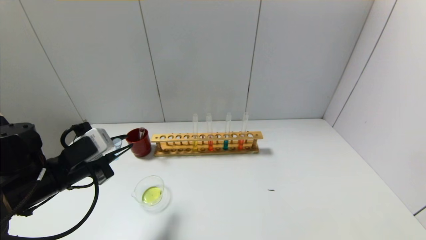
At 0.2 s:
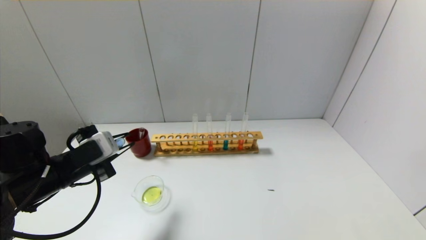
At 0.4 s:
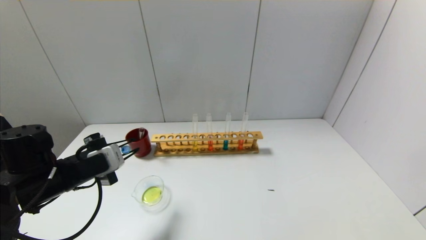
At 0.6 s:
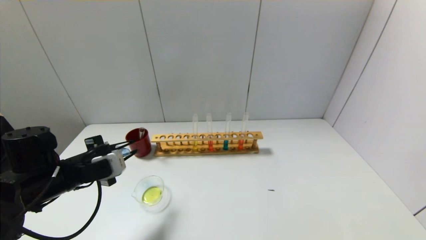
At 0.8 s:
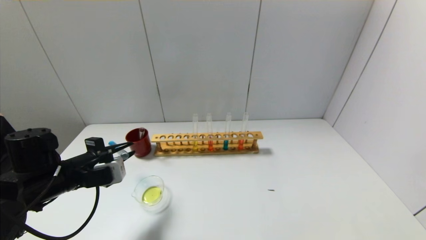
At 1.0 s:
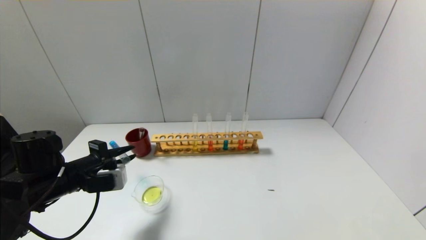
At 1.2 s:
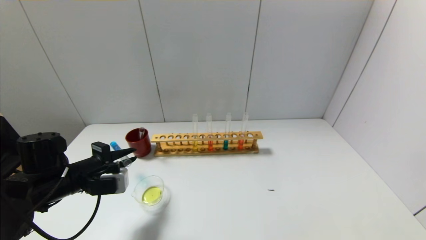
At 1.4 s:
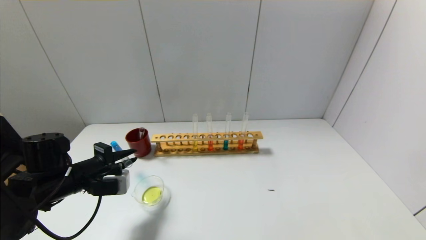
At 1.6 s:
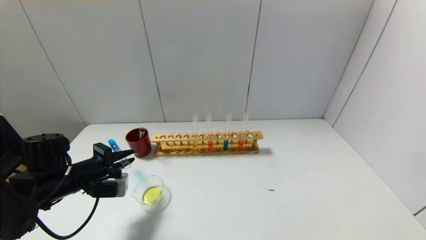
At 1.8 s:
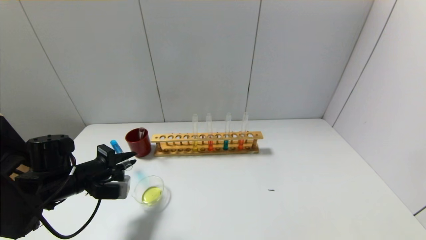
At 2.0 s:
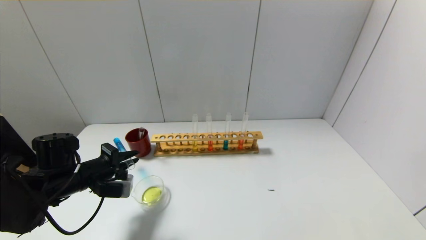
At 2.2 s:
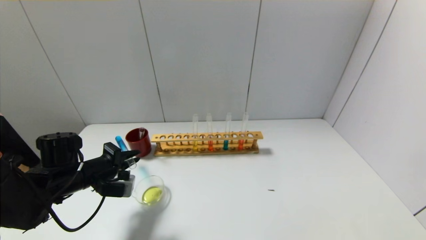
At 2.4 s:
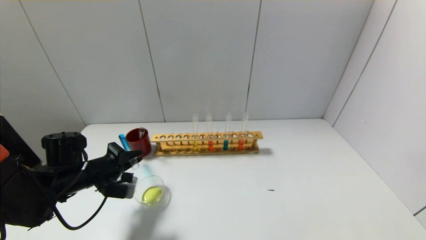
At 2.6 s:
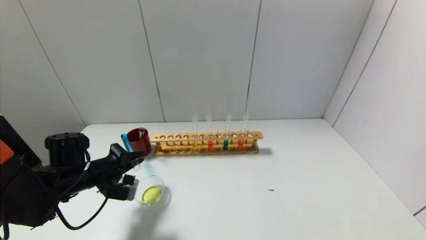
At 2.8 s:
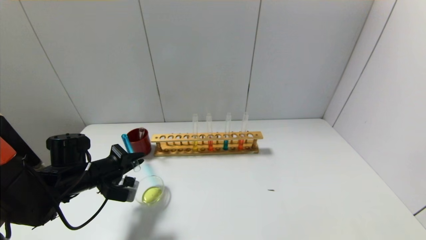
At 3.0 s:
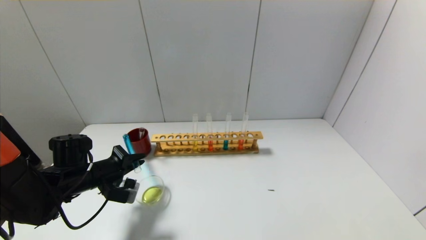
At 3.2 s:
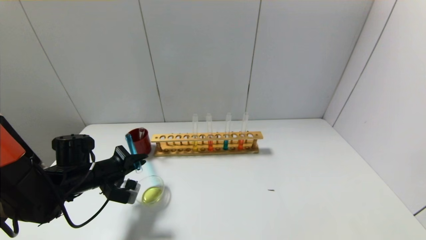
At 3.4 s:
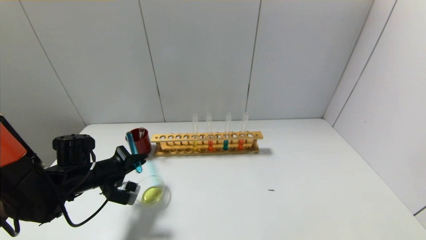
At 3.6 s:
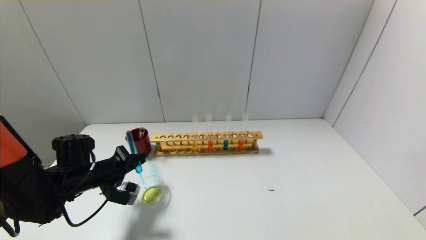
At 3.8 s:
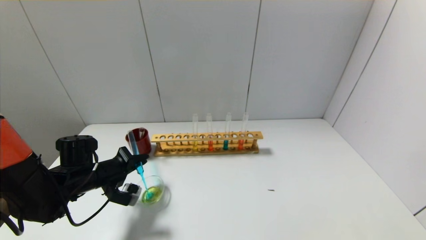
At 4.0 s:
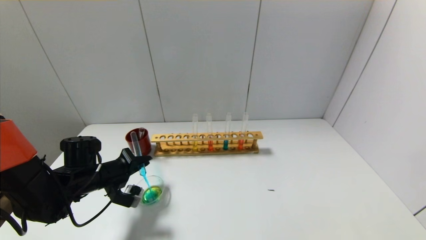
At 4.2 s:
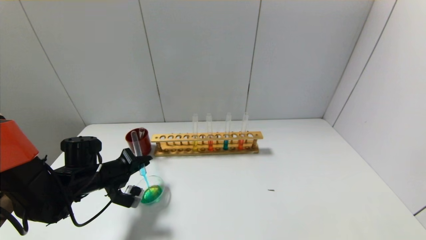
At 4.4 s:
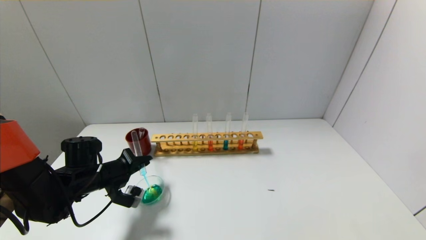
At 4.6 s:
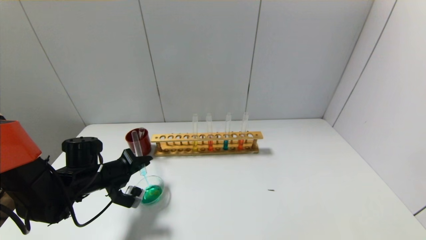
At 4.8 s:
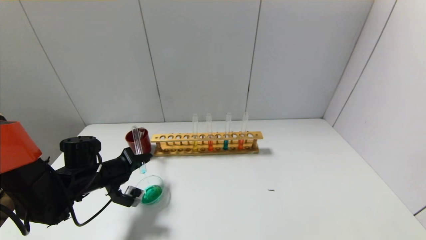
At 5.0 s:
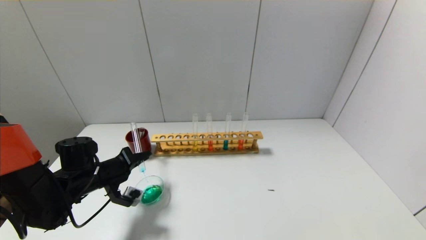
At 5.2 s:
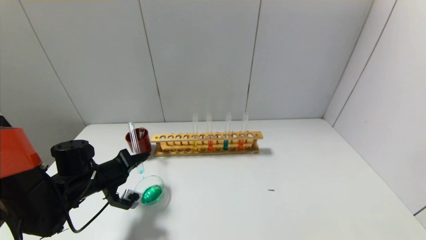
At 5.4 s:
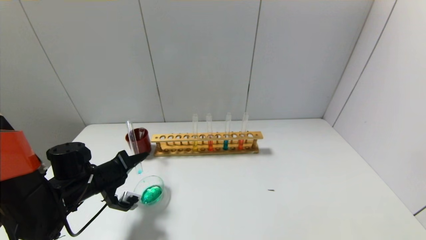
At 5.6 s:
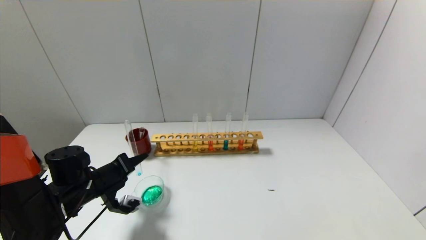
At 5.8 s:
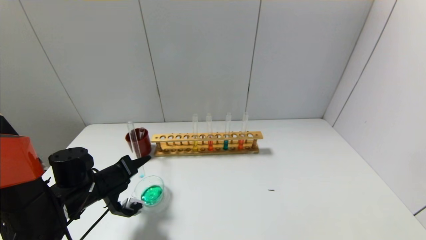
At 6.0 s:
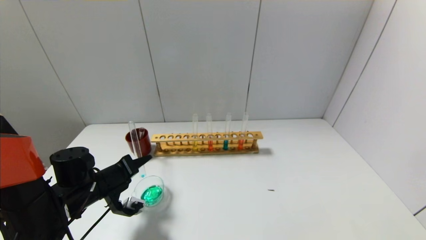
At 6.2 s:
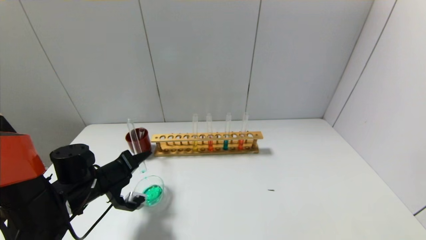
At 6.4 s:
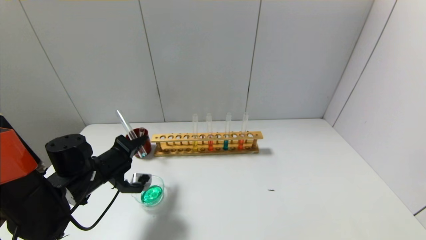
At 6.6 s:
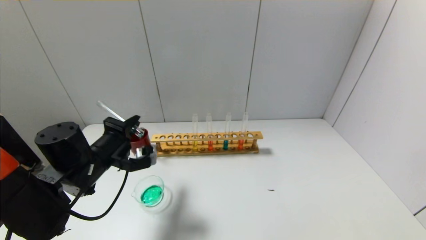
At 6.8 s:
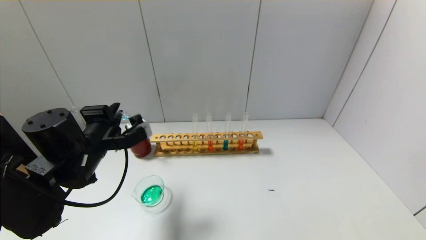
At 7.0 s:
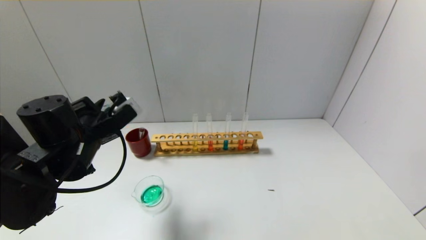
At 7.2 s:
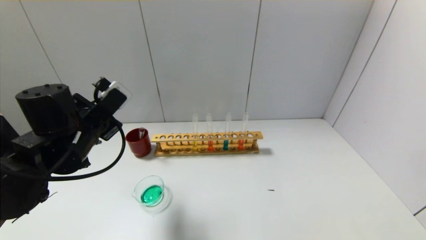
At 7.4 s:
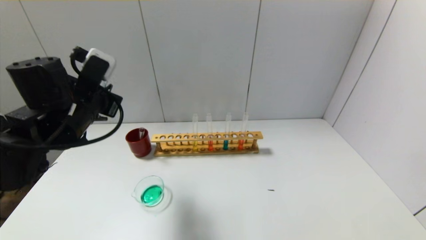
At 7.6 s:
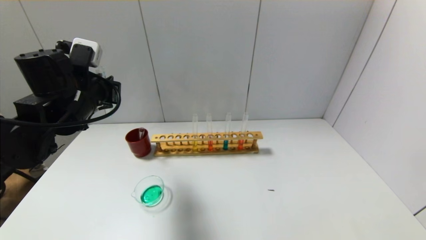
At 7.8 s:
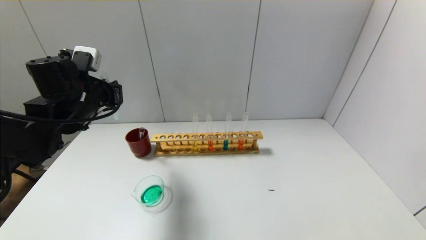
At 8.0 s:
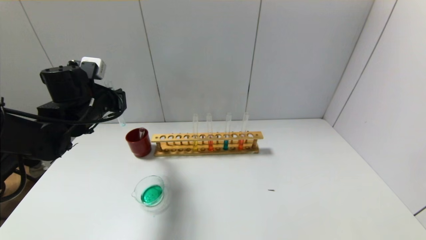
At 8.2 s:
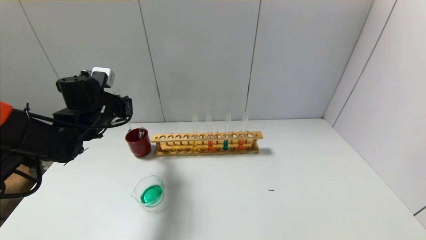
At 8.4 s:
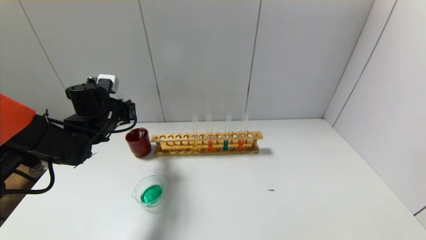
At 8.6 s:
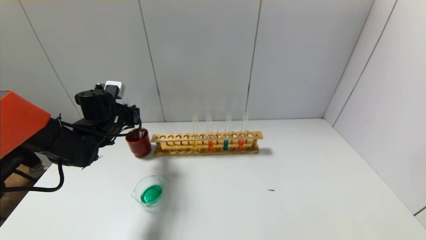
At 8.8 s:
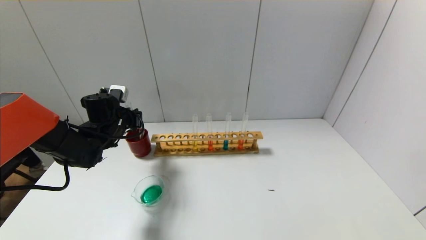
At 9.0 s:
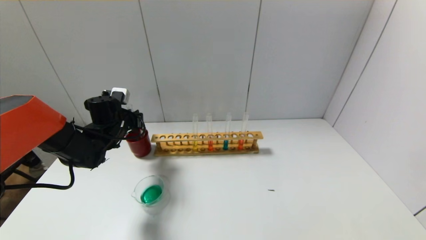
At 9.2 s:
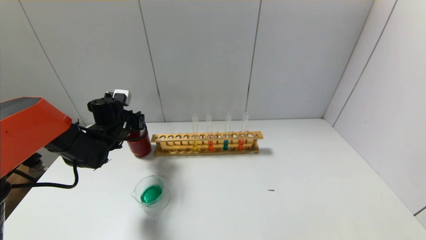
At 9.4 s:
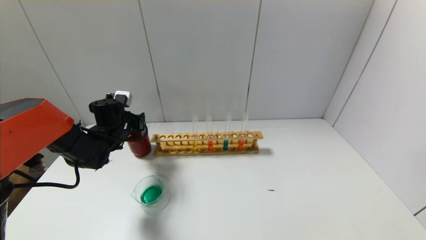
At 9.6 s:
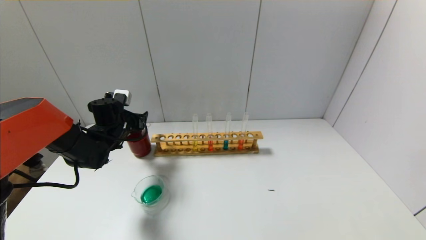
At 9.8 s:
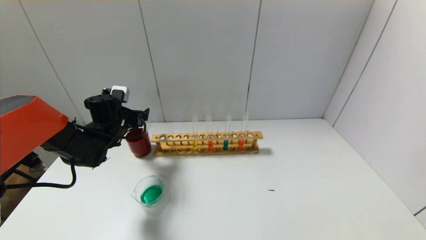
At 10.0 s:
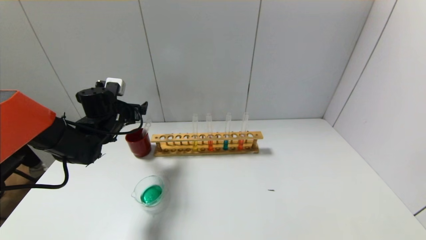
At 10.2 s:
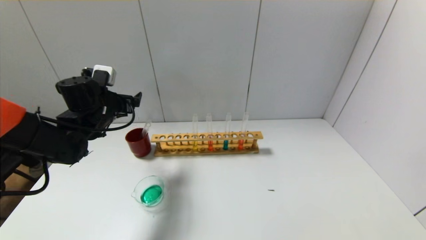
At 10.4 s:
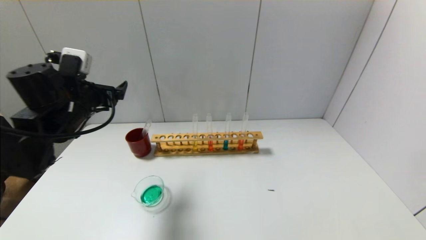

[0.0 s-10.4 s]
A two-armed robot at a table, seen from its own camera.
Step, 0.0 to 6.4 s: Pour the blue reagent into the graduated cylinder with the left gripper.
Step, 6.6 to 9.4 s: Place the test tube into the brown cup with the left gripper.
0.0 to 1.4 s: The left gripper moves about 5 cm.
3.0 to 4.4 s: There are only small adjustments of the grippers.
4.4 to 6.0 s: The grippers stay close to where they were, moving slightly.
6.0 to 7.4 s: The left gripper shifts about 15 cm upward.
7.4 to 9.0 s: The left gripper shifts approximately 15 cm forward and downward.
9.0 to 10.4 s: The left gripper heads upward and backward, covering some 15 cm, and opens.

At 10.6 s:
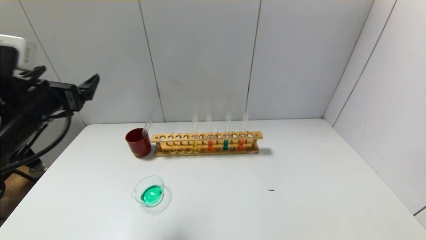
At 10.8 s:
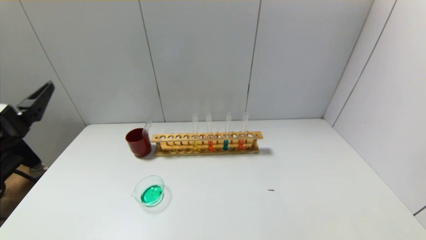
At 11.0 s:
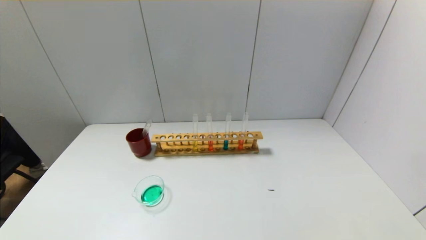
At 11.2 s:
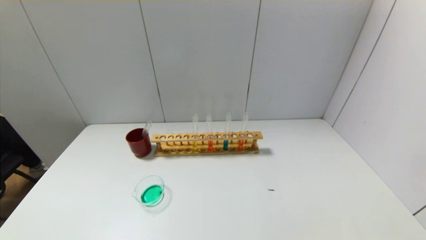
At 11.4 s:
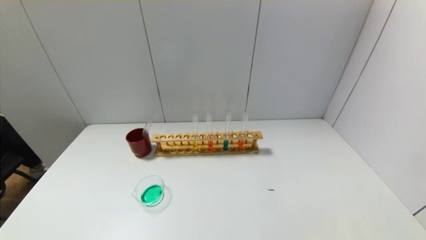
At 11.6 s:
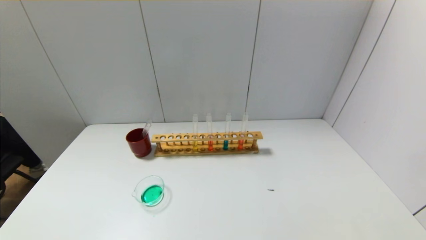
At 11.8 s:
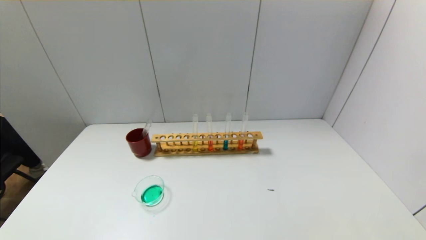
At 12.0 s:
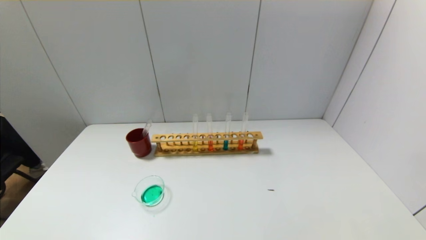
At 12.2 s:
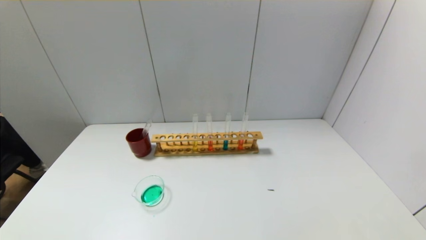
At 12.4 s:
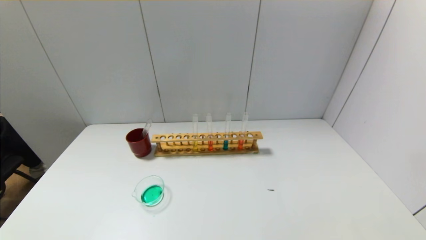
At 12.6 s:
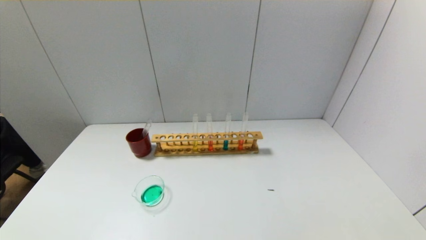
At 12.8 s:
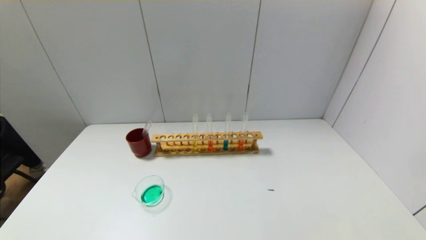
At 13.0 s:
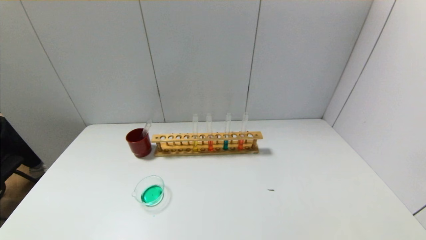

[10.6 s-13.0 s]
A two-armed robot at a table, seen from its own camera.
10.6 to 11.8 s: The left gripper travels backward and downward by approximately 30 cm.

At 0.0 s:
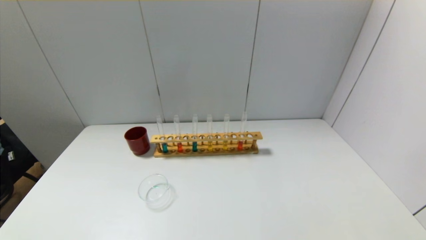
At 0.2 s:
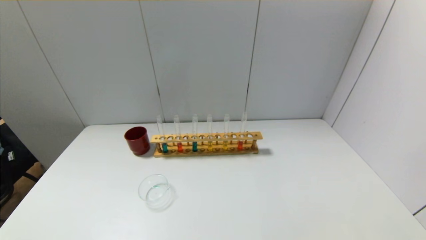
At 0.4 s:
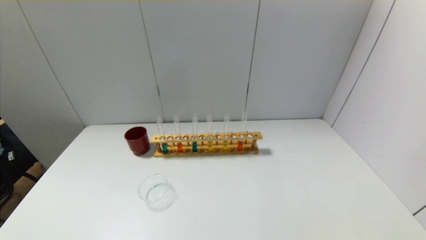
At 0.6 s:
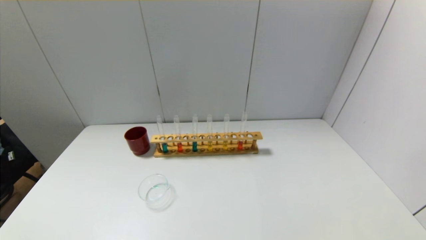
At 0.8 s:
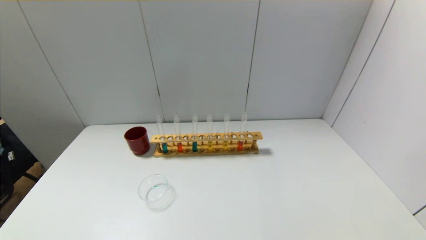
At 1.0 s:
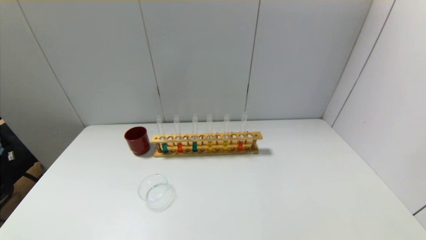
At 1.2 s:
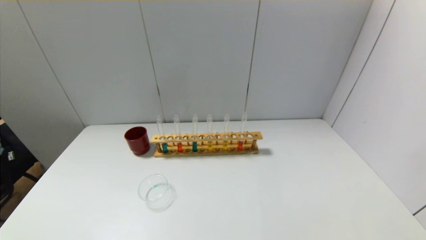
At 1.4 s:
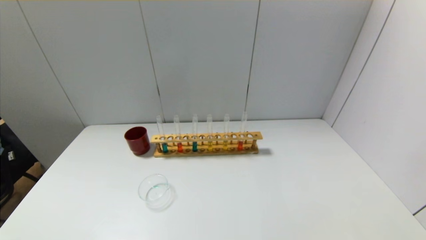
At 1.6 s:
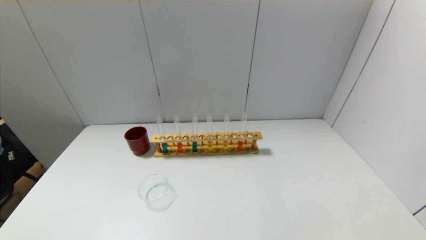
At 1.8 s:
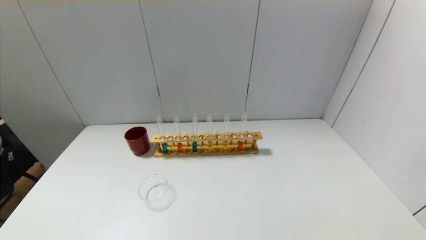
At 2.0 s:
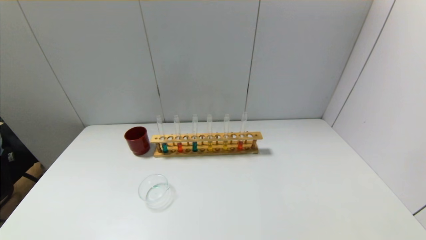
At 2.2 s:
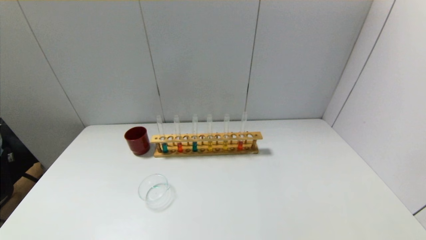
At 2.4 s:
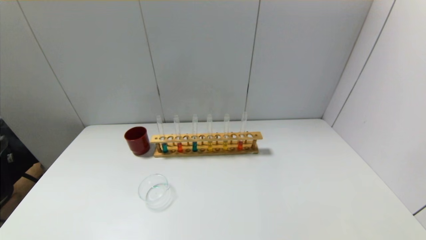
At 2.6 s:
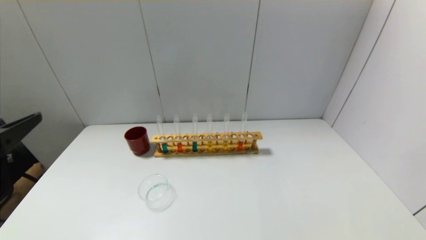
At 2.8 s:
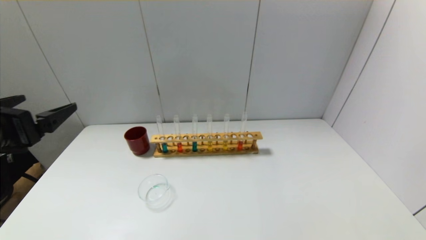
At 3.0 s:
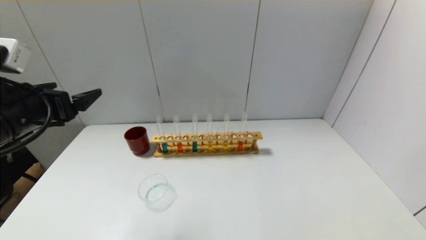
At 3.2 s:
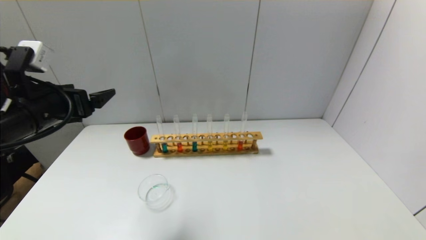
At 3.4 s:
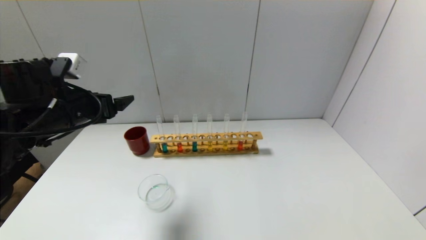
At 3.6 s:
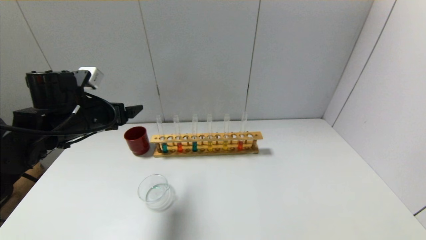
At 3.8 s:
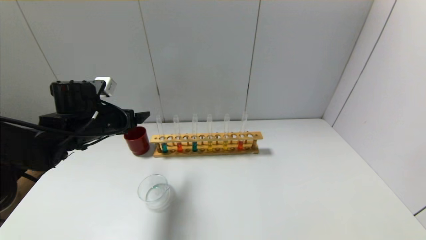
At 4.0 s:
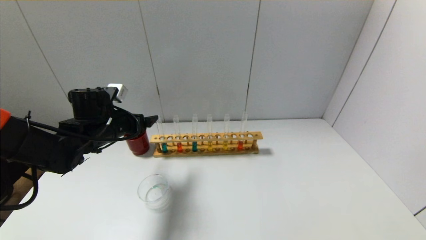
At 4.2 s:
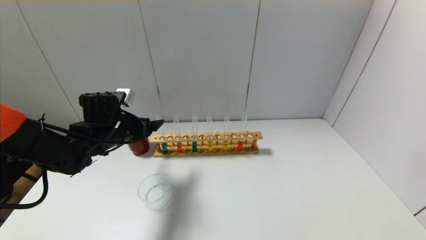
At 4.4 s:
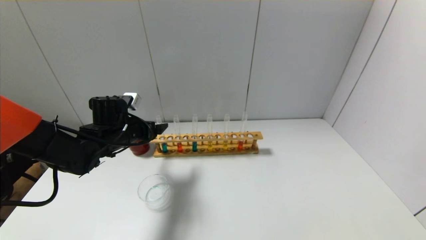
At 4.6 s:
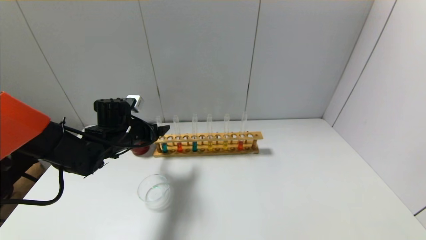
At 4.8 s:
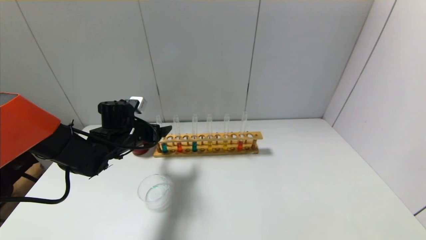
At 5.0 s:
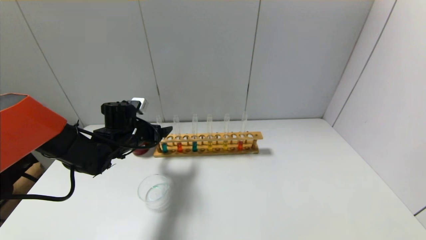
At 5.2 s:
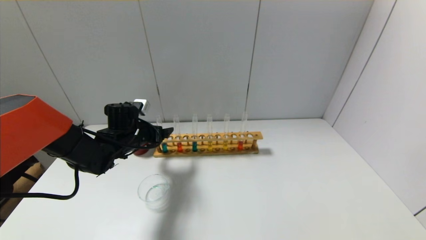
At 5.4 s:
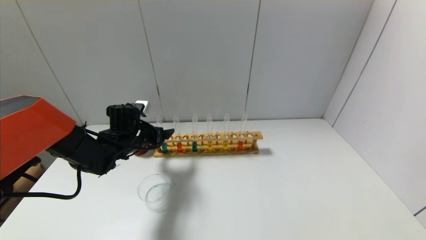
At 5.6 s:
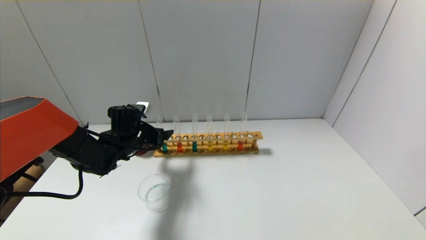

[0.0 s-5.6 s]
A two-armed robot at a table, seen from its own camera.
1.4 to 2.8 s: The left gripper heads forward and upward, covering roughly 25 cm.
2.8 to 4.2 s: The left gripper heads forward and downward, covering some 20 cm.
4.2 to 5.6 s: The left gripper changes place by about 5 cm.
